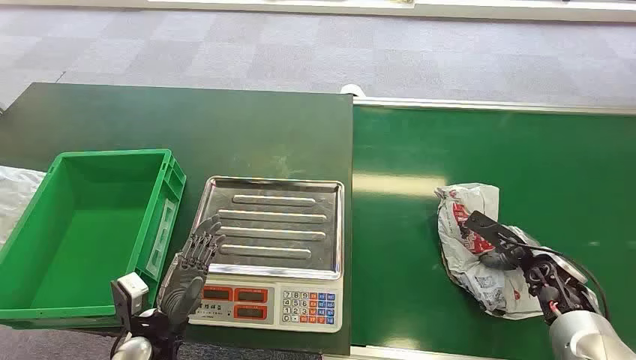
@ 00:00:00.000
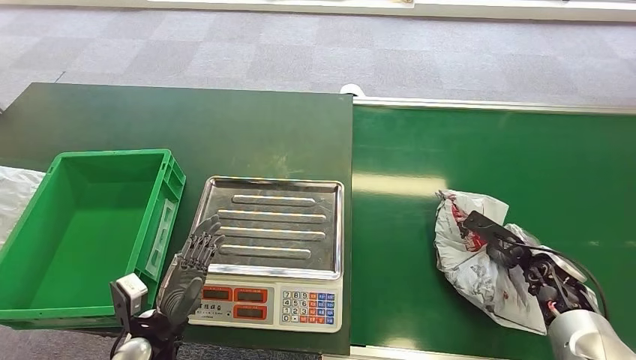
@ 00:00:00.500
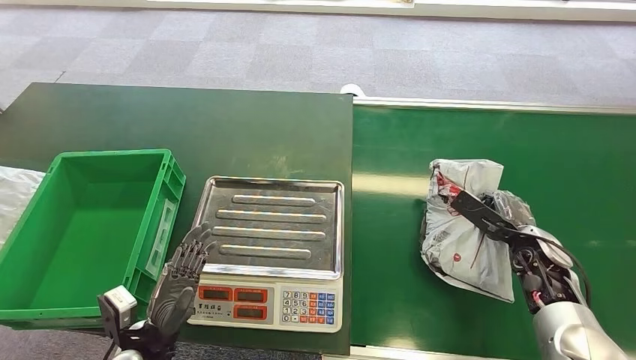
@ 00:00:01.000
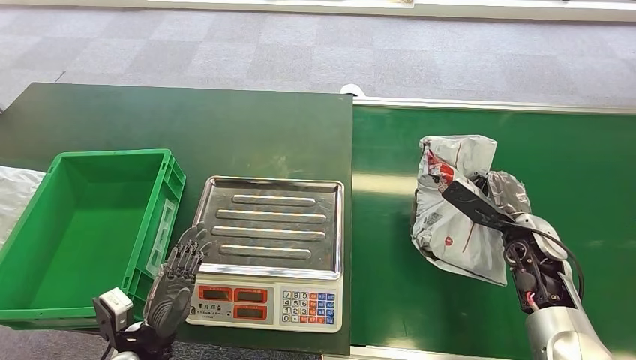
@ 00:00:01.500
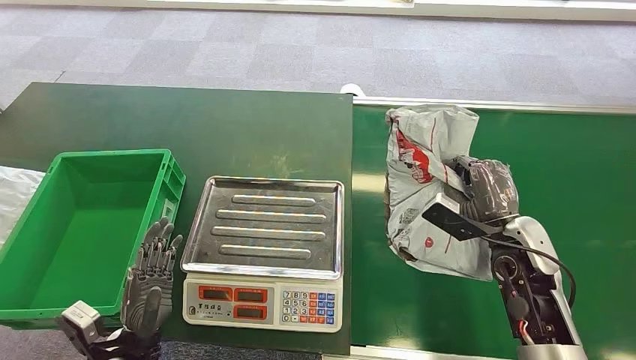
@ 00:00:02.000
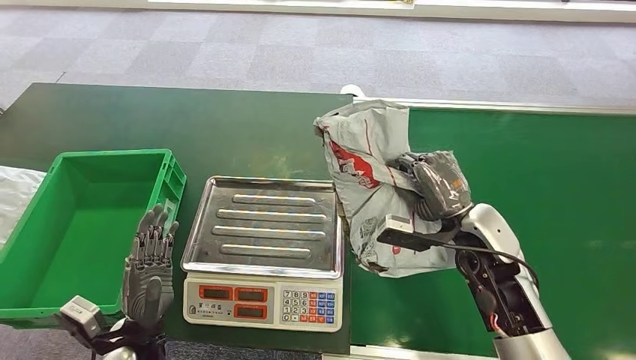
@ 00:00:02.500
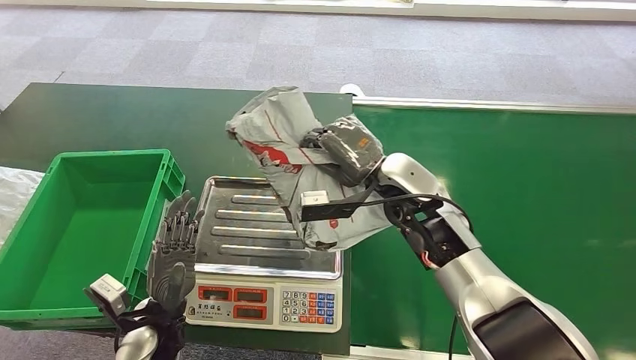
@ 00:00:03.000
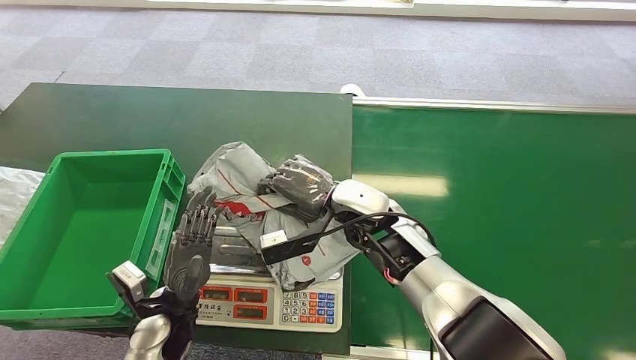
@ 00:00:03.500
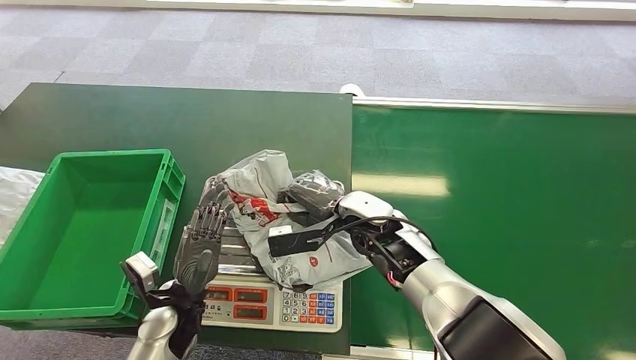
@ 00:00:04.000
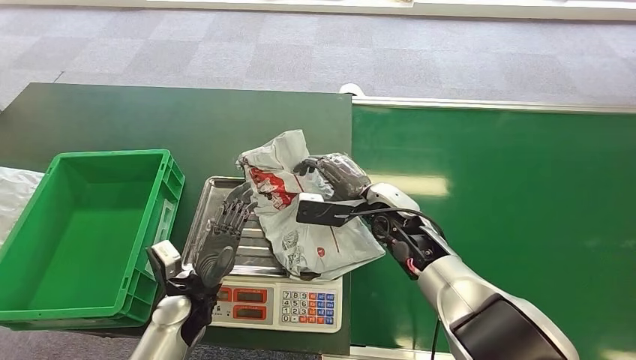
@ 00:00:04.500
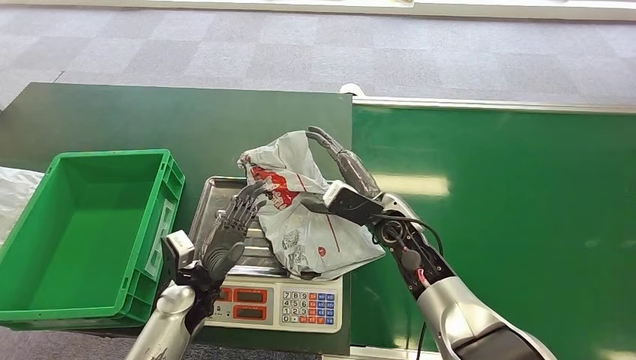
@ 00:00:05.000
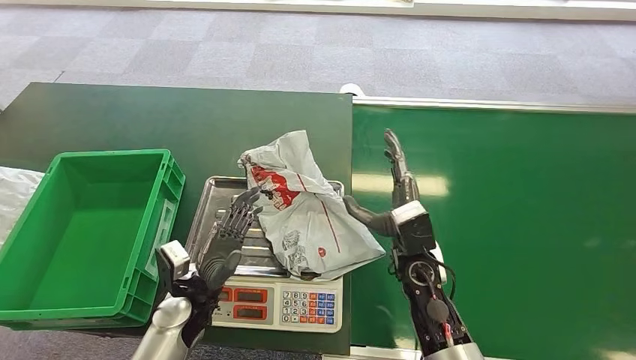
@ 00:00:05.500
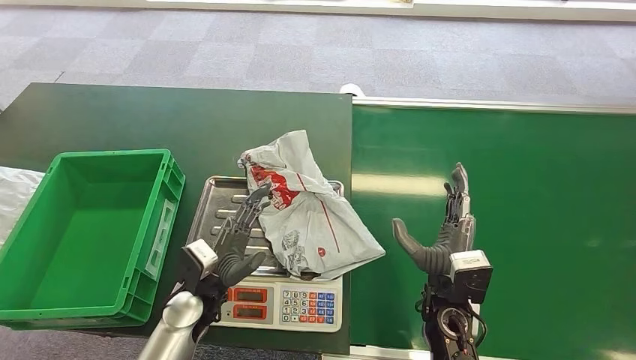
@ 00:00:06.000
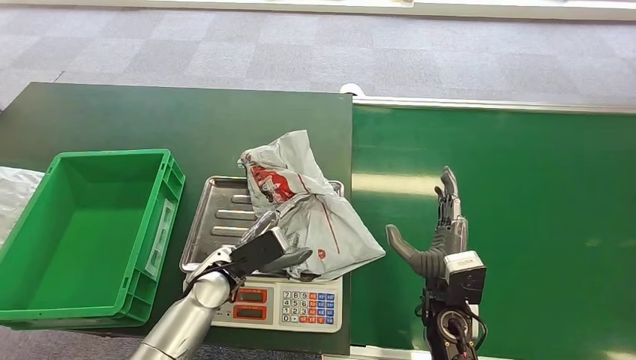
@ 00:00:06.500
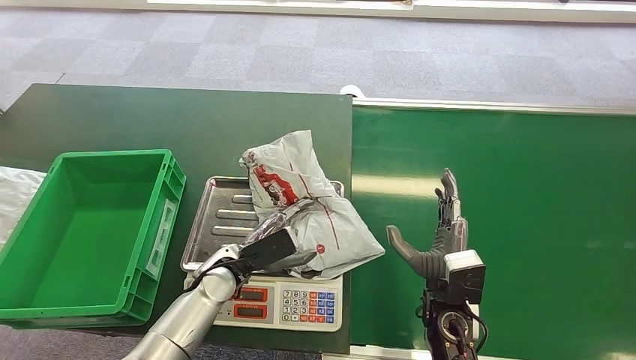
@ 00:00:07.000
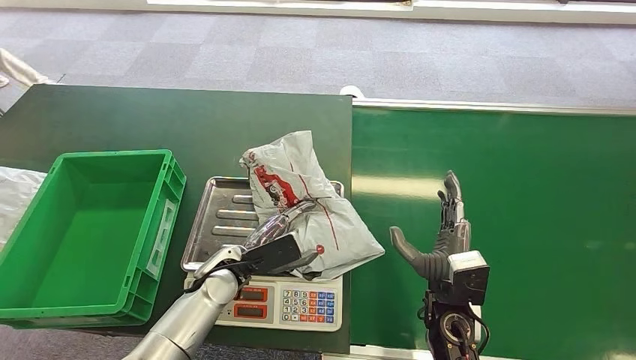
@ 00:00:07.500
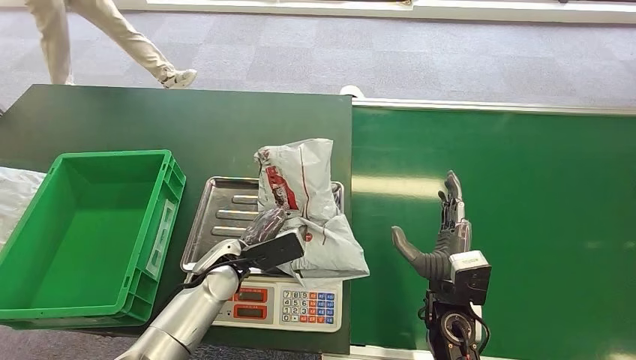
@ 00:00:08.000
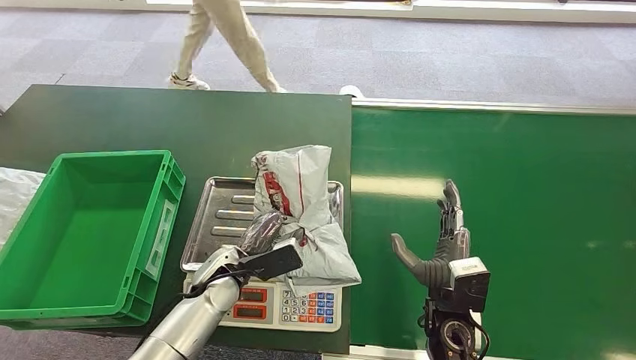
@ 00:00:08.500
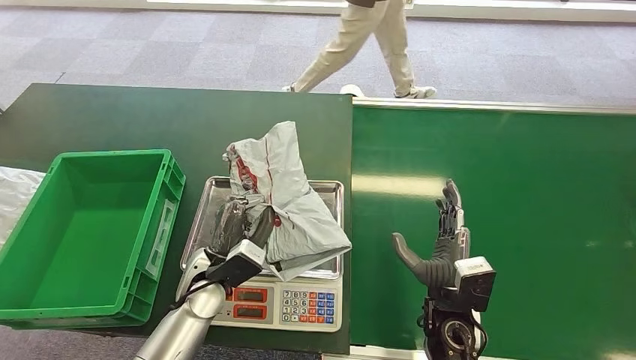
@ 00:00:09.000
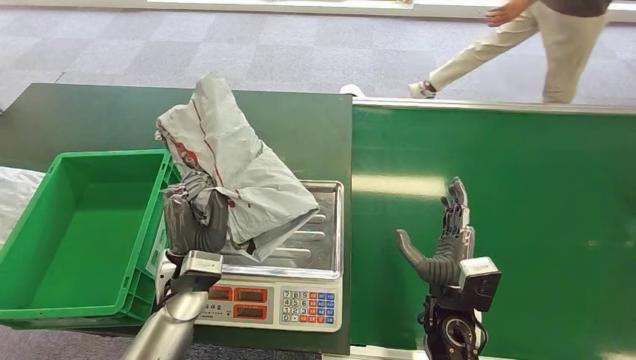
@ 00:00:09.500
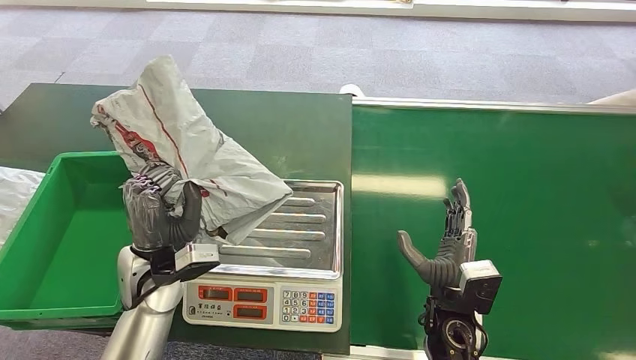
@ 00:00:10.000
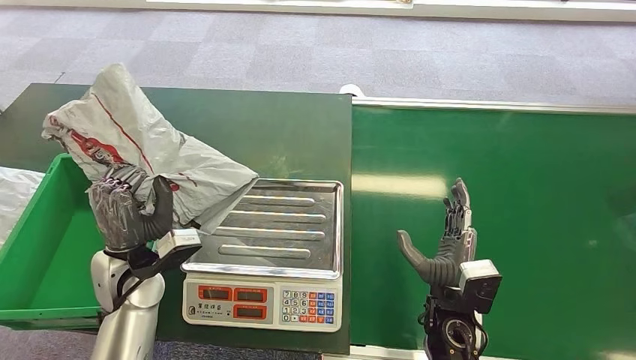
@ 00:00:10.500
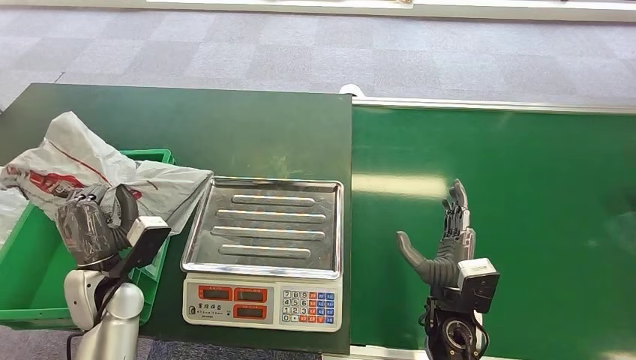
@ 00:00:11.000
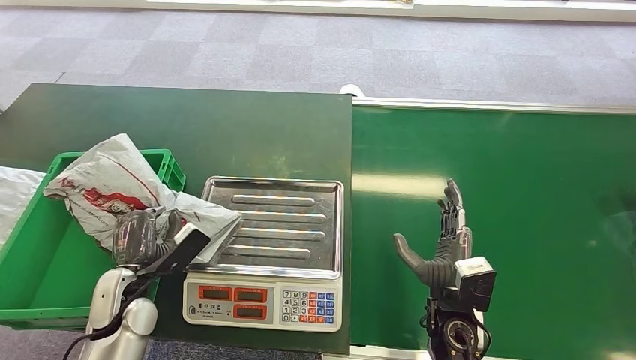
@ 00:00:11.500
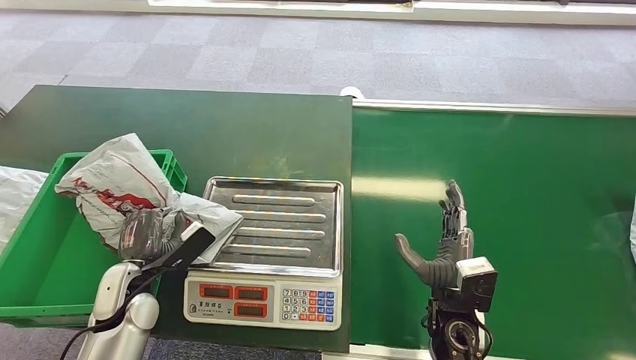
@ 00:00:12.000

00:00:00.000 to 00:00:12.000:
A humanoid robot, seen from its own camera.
Step, 00:00:00.000 to 00:00:01.500: Pick up the package from the conveyor belt.
Step, 00:00:02.500 to 00:00:05.000: Place the package onto the inbound machine.
Step, 00:00:05.500 to 00:00:09.500: Pick up the package from the inbound machine.
00:00:04.000 to 00:00:06.000: The right hand travels backward and to the right by about 15 cm.
00:00:06.000 to 00:00:08.000: The left hand is displaced forward by about 5 cm.

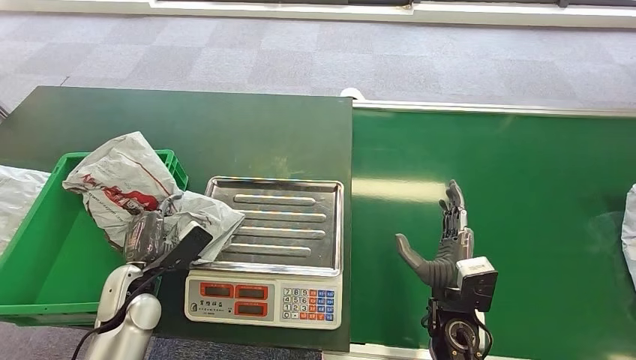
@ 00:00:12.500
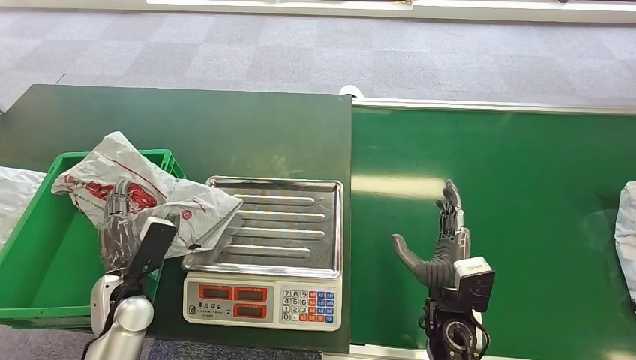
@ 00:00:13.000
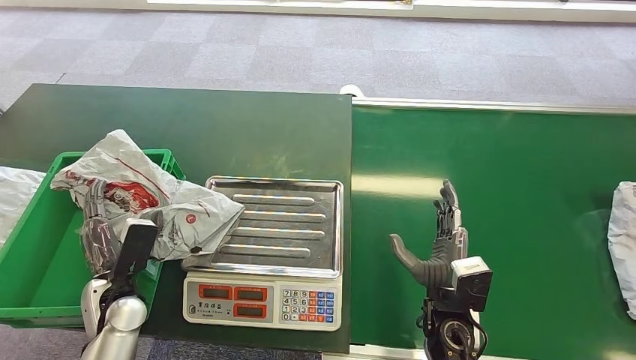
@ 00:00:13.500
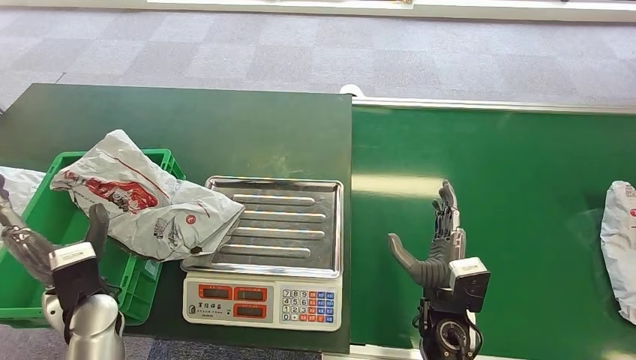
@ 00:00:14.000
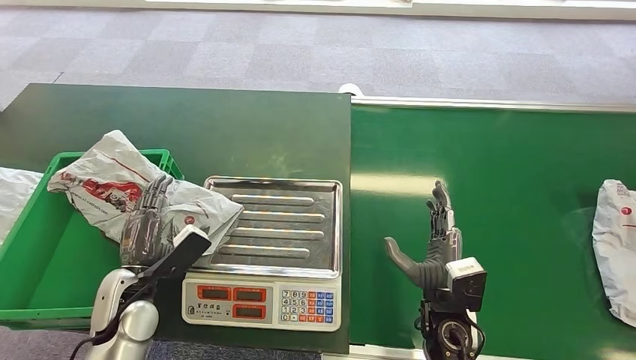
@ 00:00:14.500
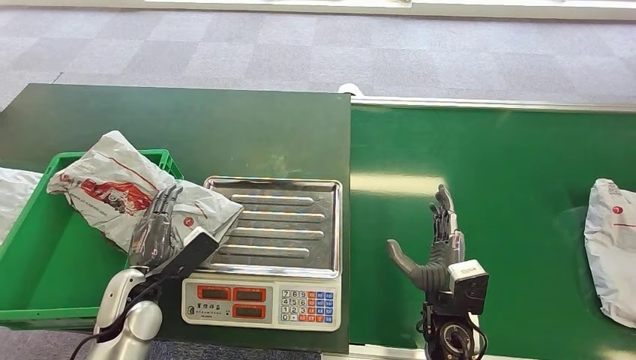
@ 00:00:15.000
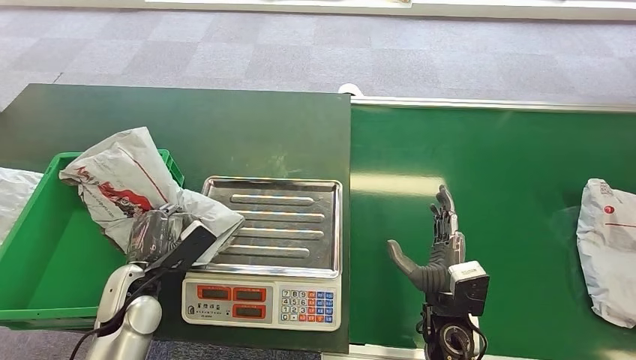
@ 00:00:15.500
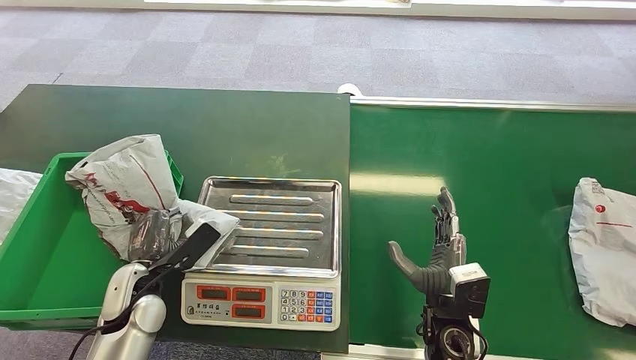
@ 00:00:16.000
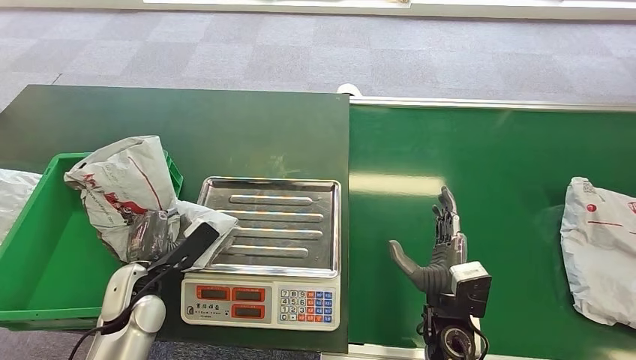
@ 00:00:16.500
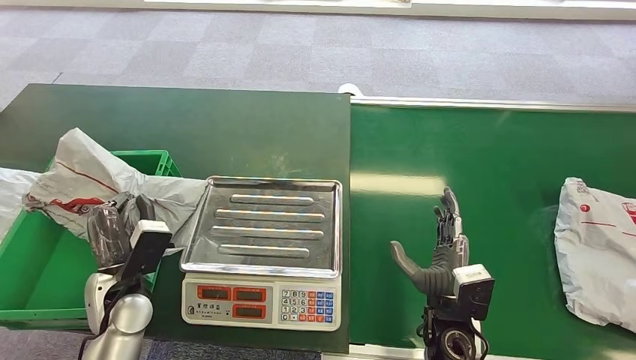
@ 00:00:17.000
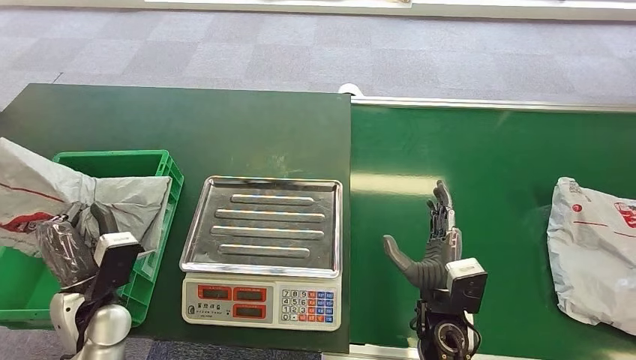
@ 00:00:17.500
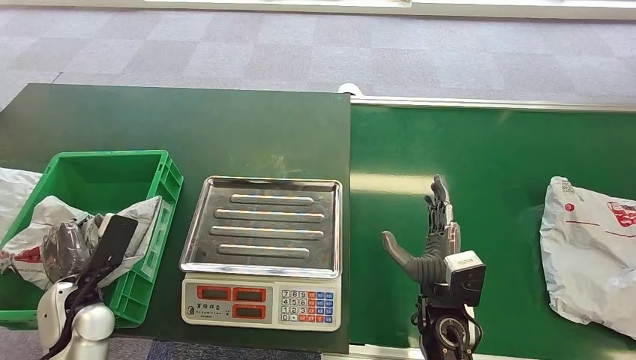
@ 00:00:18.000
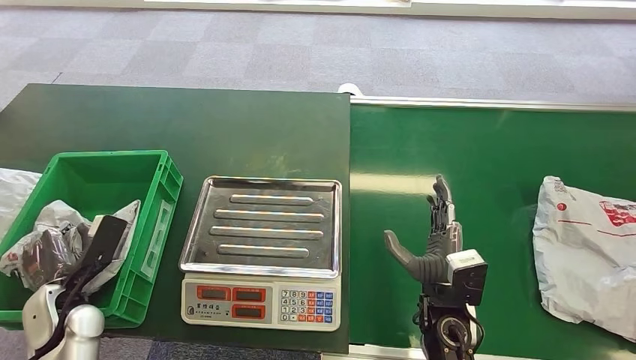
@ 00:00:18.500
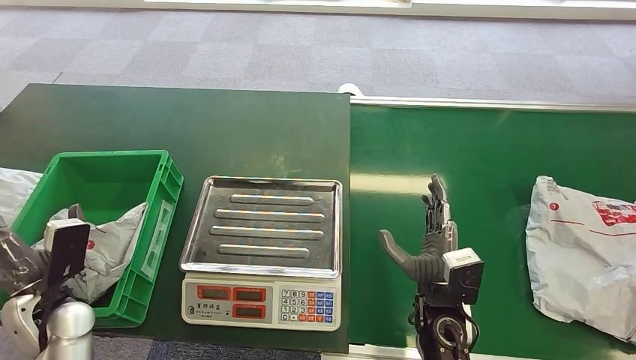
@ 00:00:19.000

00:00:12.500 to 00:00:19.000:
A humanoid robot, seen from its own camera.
Step, 00:00:15.000 to 00:00:19.000: Place the package into the parcel locker.
00:00:17.000 to 00:00:19.000: The left hand moves to the left, some 10 cm.
